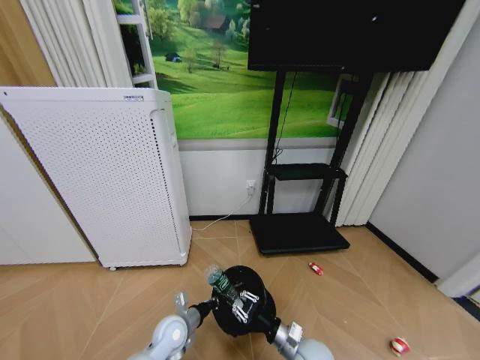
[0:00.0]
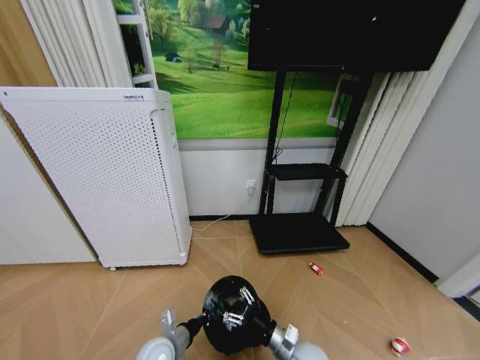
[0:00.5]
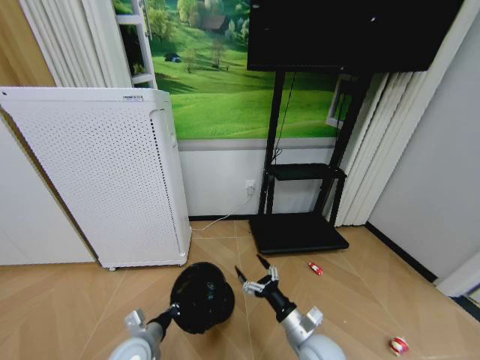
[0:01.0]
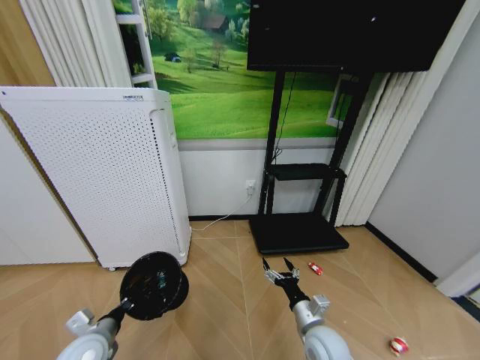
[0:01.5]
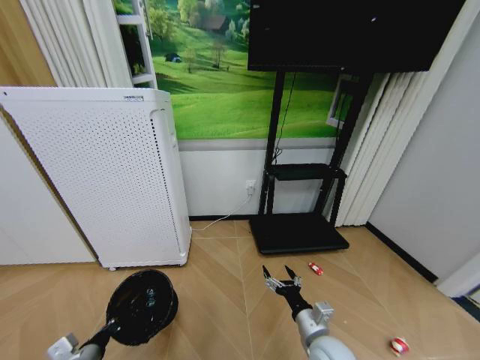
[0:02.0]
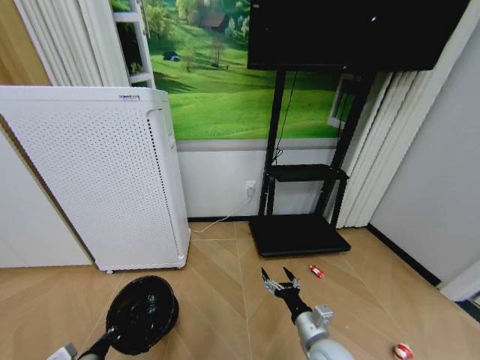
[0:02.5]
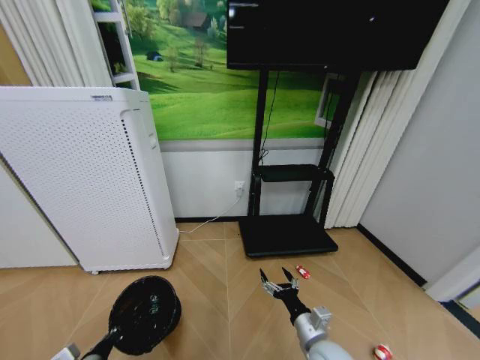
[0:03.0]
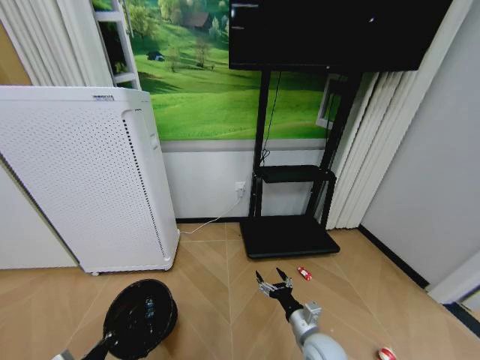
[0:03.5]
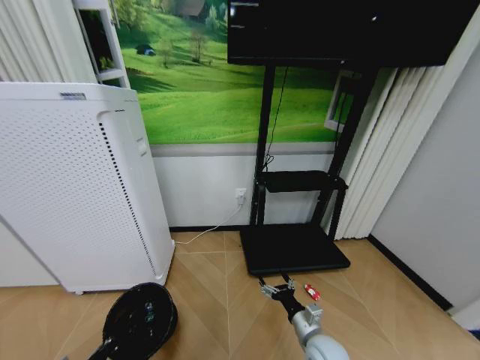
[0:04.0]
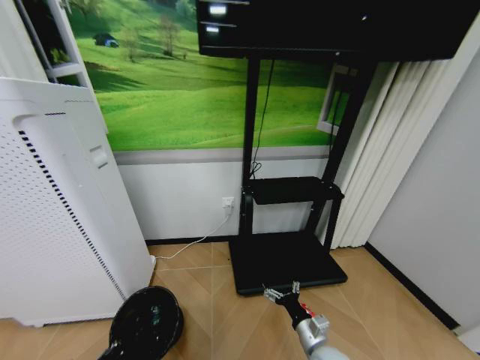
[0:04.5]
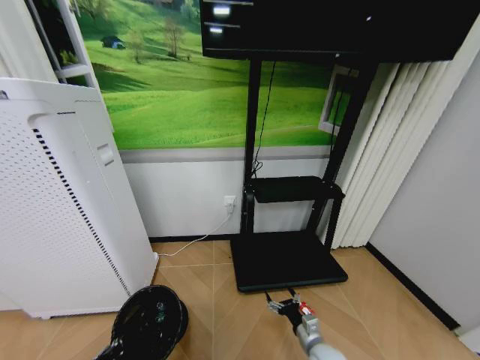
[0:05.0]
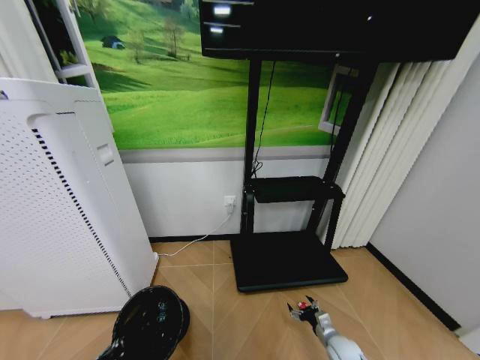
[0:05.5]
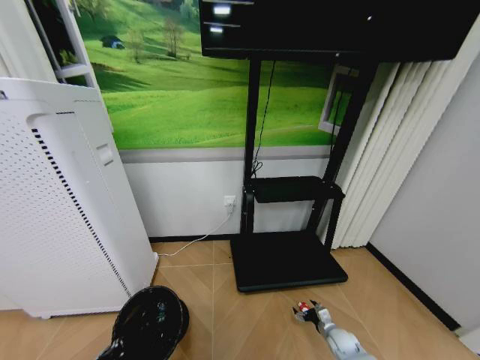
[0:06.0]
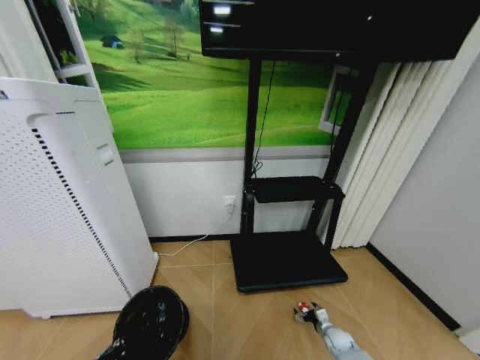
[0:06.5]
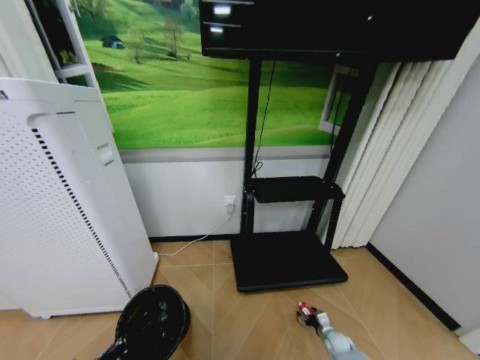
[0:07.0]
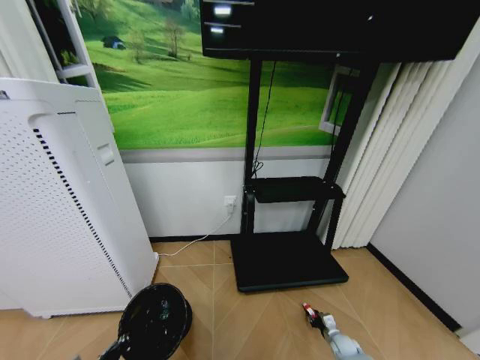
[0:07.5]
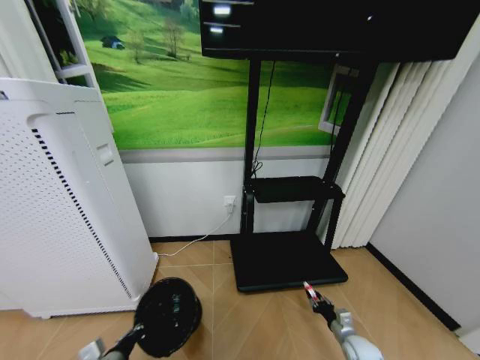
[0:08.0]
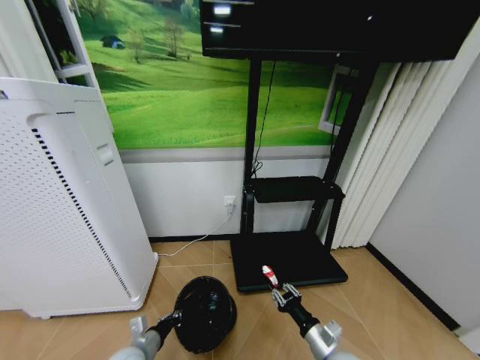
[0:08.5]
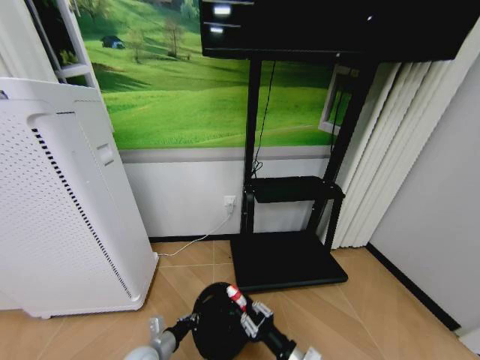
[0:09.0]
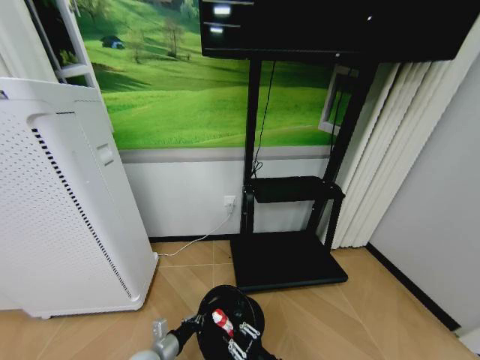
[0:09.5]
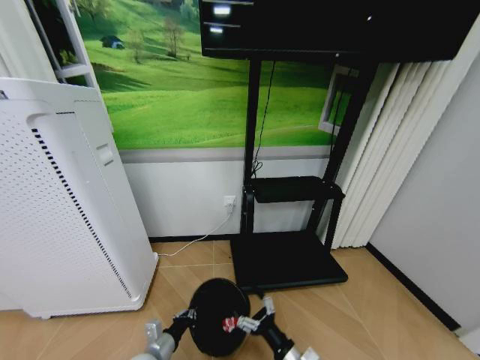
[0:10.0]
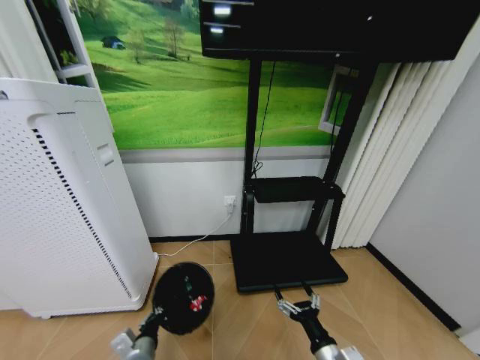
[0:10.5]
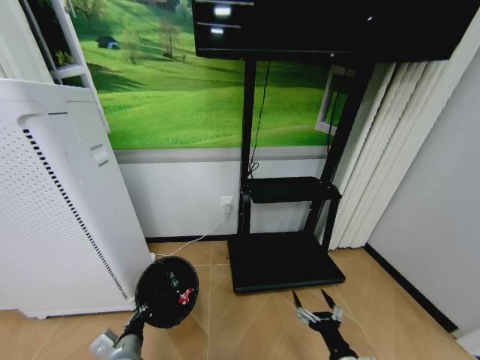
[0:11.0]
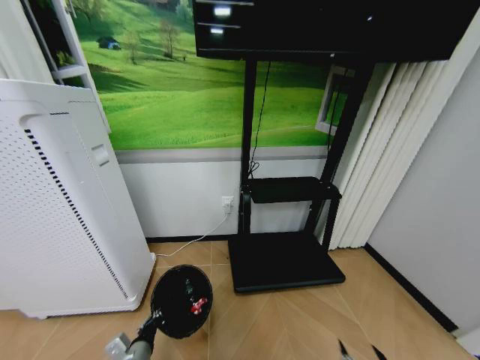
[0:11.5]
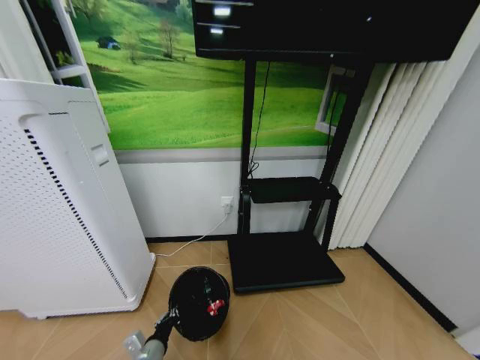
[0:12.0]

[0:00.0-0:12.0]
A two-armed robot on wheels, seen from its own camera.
Task of the whole recording: Pick up the trash bin and place the garbage on the floor into it.
0:00.0 to 0:02.0: The right gripper is displaced upward by roughly 5 cm, and opens up. Meanwhile the left gripper heads to the left and backward, covering approximately 20 cm.
0:02.0 to 0:04.0: The right gripper shifts by approximately 5 cm.
0:04.0 to 0:06.0: The right gripper is displaced downward and to the right by approximately 25 cm.
0:06.0 to 0:08.0: The right gripper heads upward, covering about 5 cm, and closes its fingers. The left gripper is displaced forward by some 5 cm.
0:08.0 to 0:10.0: The right gripper shifts about 25 cm to the left, upward and backward, and opens up. The left gripper shifts about 10 cm to the right.
0:10.0 to 0:12.0: The right gripper goes about 30 cm to the right and backward.

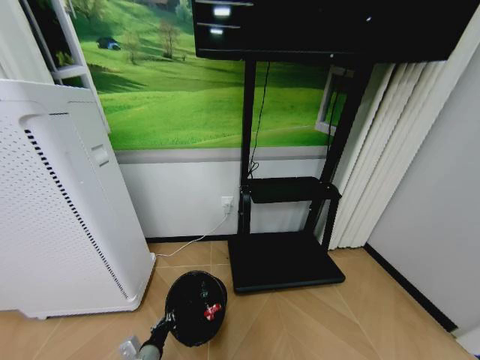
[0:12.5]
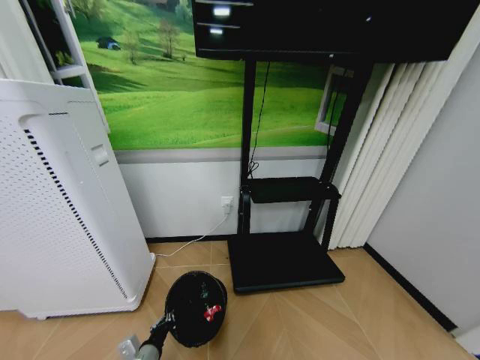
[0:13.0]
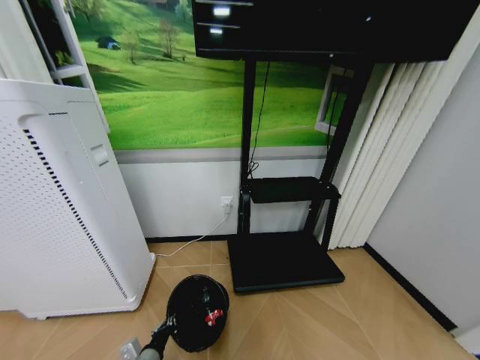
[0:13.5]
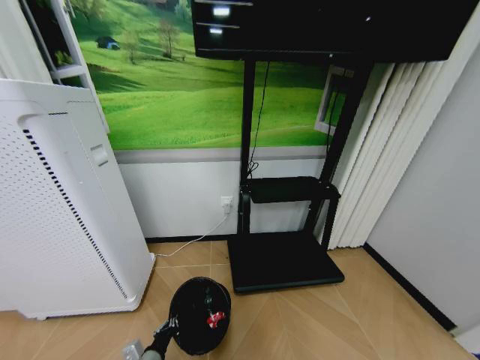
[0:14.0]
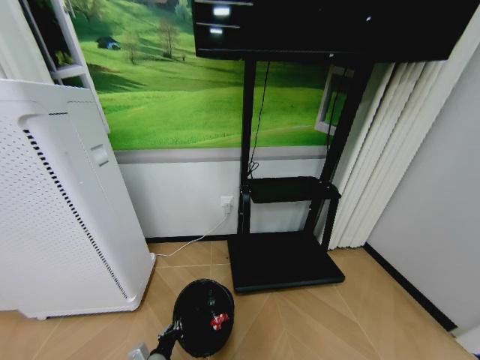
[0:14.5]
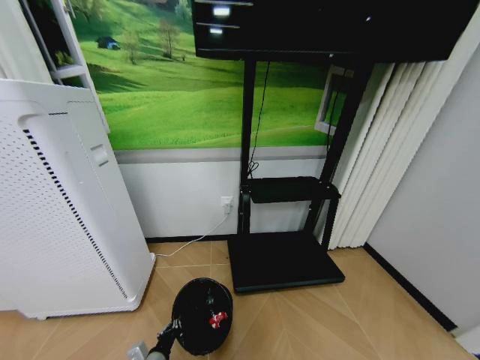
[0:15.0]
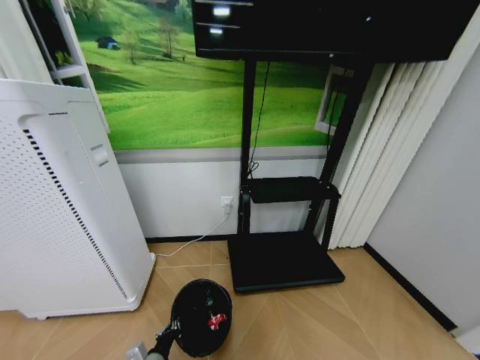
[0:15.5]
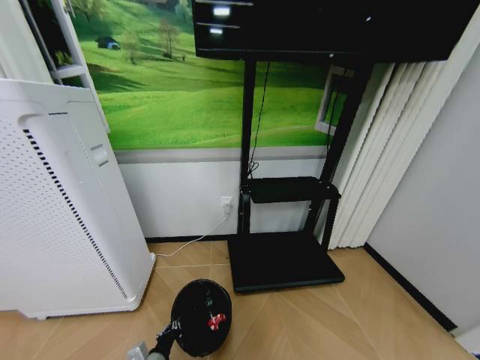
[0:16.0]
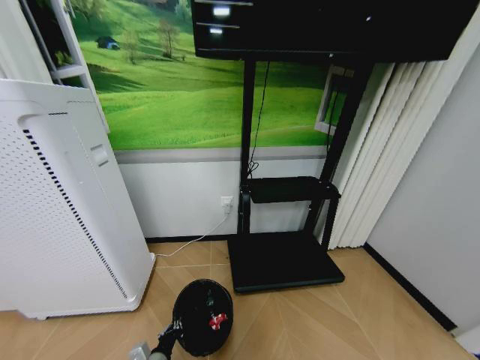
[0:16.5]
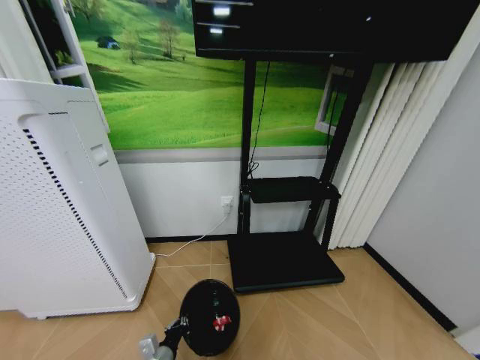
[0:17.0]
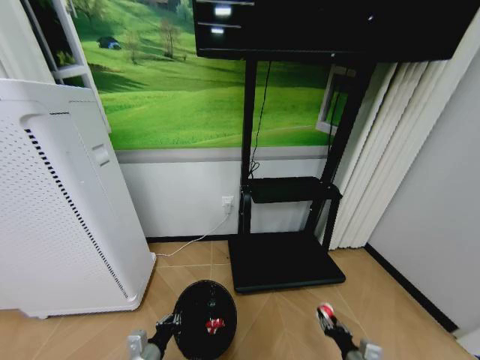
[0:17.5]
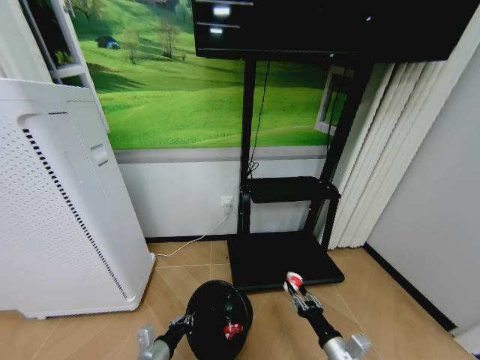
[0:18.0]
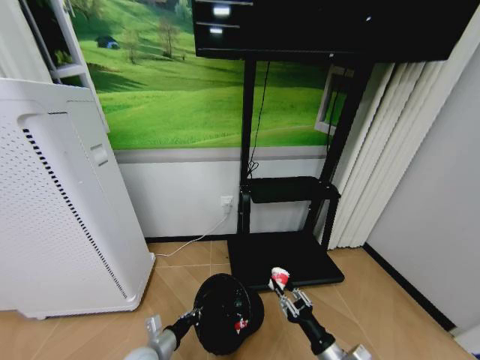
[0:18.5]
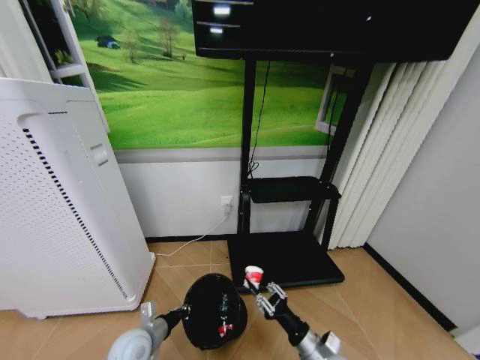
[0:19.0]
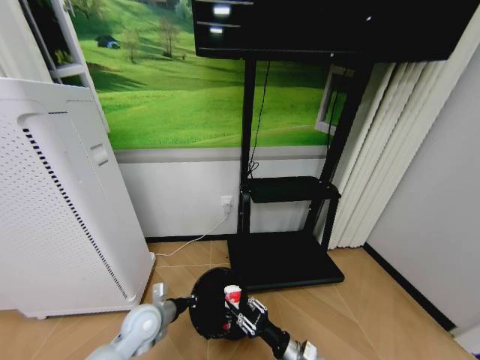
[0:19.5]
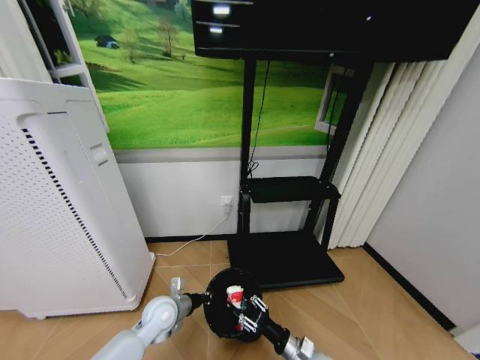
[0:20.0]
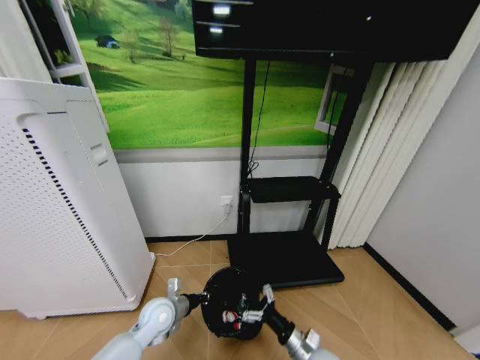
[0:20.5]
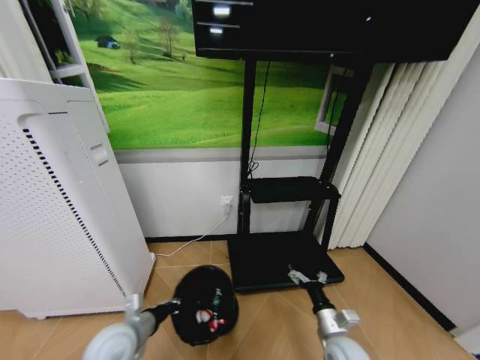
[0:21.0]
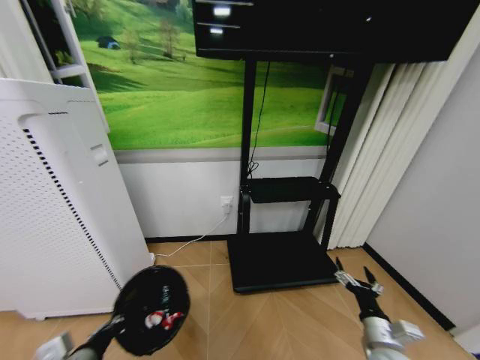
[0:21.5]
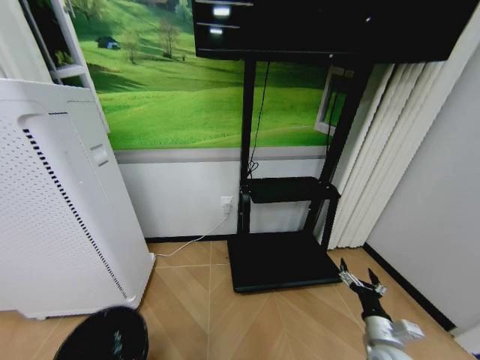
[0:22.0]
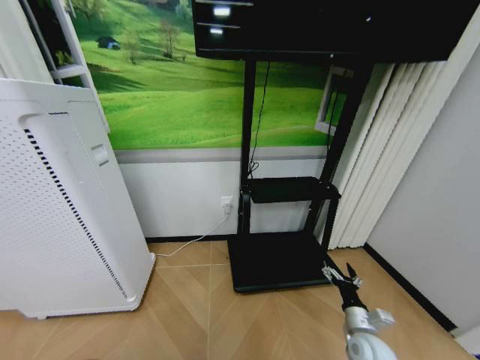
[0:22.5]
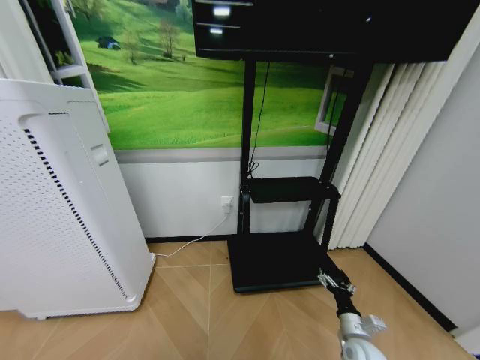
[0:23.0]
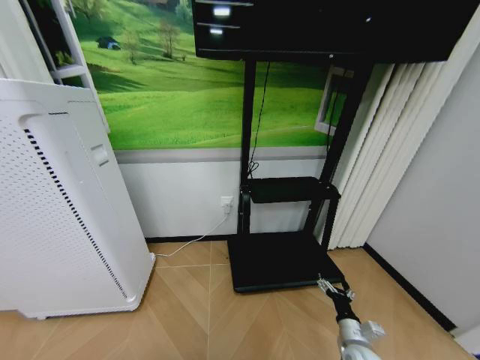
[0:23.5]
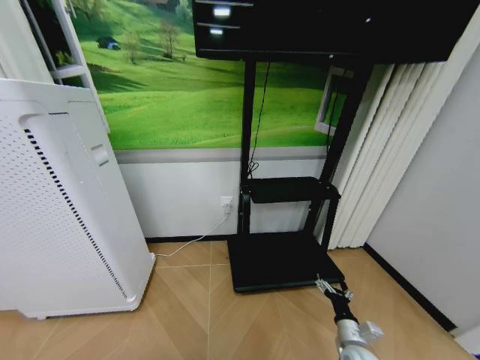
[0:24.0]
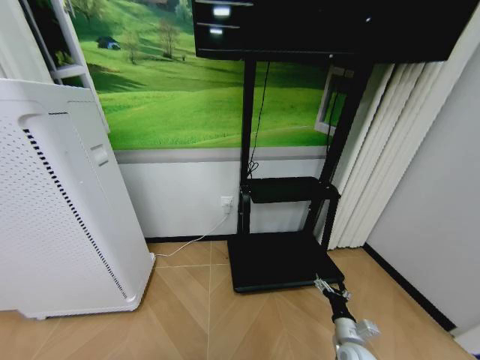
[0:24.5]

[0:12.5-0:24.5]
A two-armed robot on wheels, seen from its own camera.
Task of the whole recording: Pick up the trash bin and place the garbage on the floor into it.
0:12.5 to 0:14.5: The right gripper changes place by some 5 cm, and closes.
0:16.5 to 0:18.5: The left gripper moves forward, roughly 5 cm. Meanwhile the right gripper heads to the left, upward and forward, covering approximately 30 cm.
0:18.5 to 0:20.5: The right gripper shifts some 5 cm forward, and opens its fingers. The left gripper goes roughly 10 cm forward and upward.
0:20.5 to 0:22.5: The right gripper is displaced to the right by about 15 cm, while the left gripper travels backward and to the left by some 40 cm.
0:22.5 to 0:24.5: The right gripper shifts some 5 cm downward.

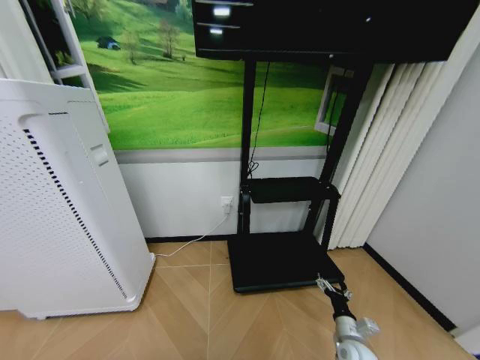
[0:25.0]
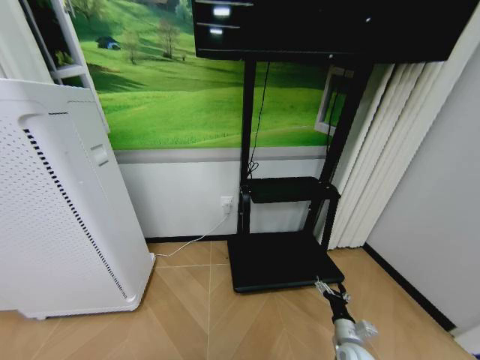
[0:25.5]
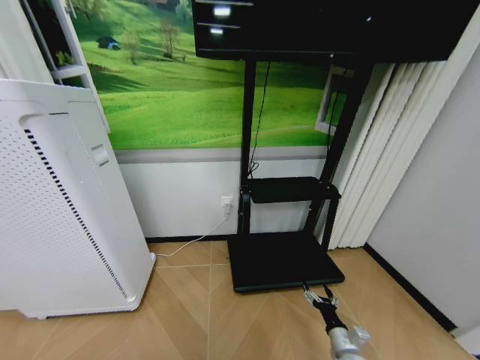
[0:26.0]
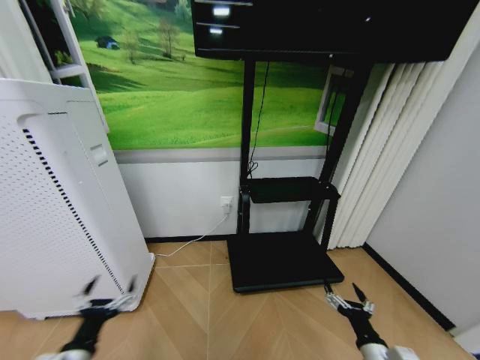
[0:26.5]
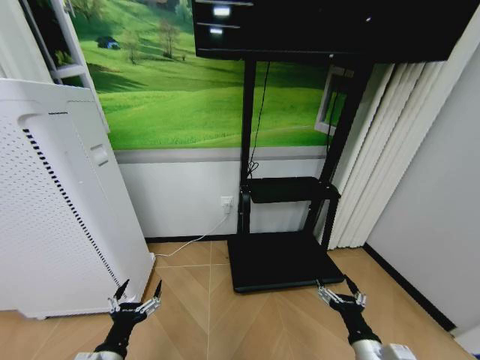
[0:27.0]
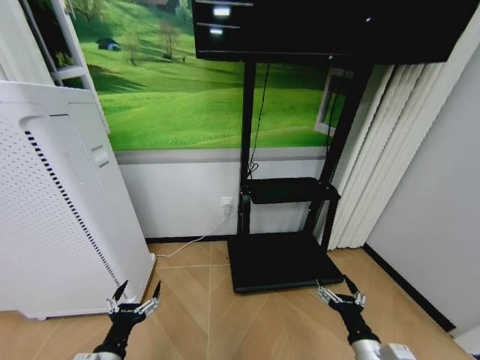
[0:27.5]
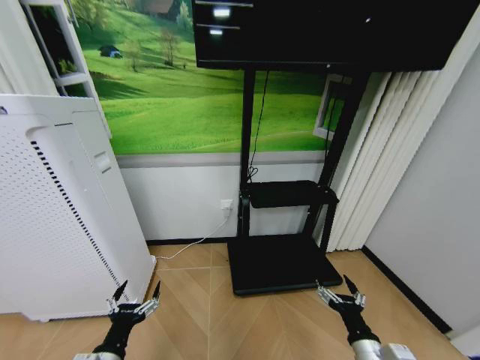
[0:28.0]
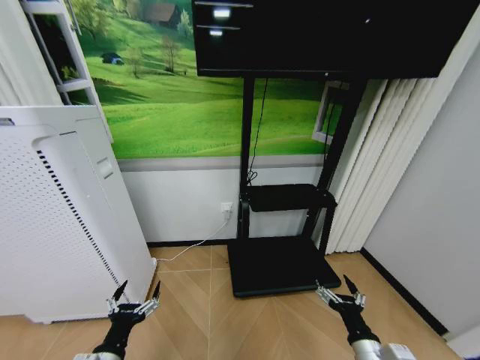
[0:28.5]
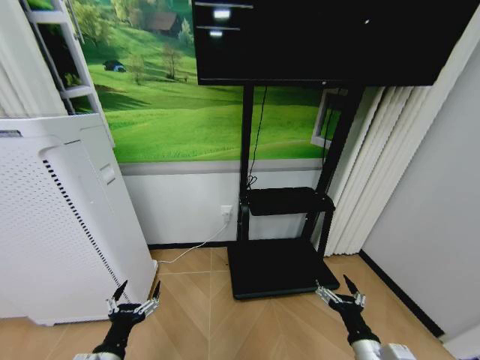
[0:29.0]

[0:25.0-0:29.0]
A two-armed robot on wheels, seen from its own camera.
Task of the whole recording: Pick up the trash bin and place the garbage on the floor into it.
0:25.0 to 0:27.0: The right gripper moves upward and backward, approximately 15 cm; the left gripper shifts some 30 cm forward and to the right, and opens.
